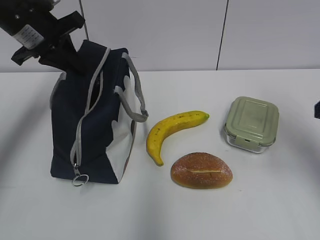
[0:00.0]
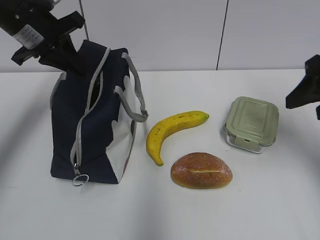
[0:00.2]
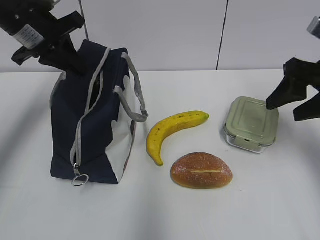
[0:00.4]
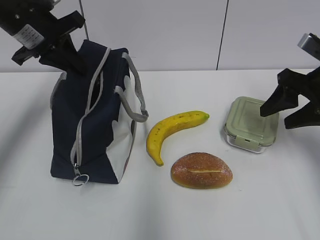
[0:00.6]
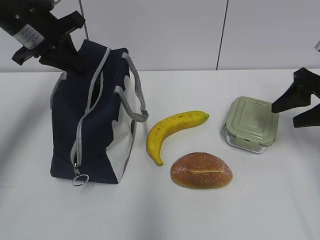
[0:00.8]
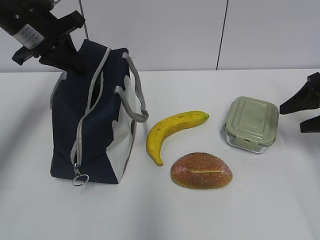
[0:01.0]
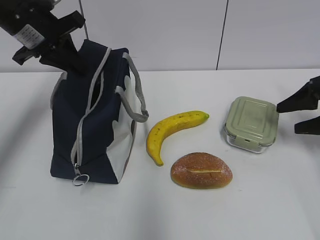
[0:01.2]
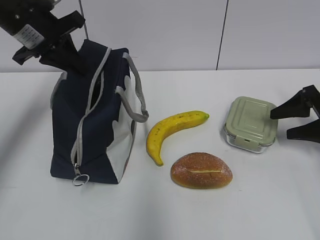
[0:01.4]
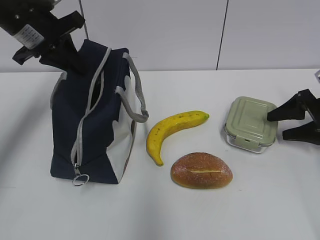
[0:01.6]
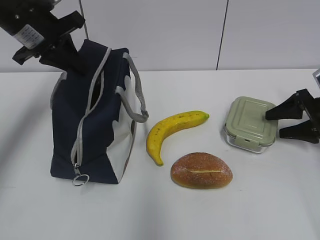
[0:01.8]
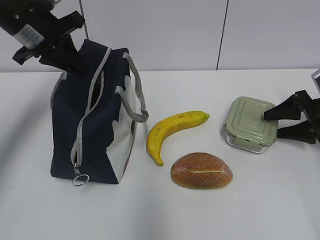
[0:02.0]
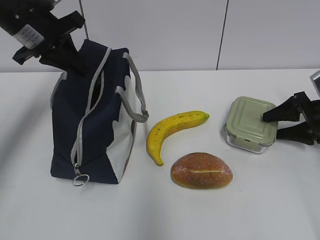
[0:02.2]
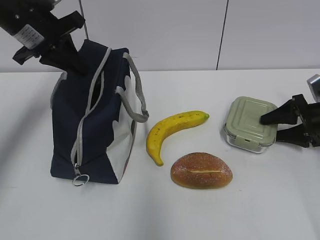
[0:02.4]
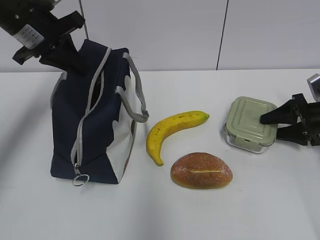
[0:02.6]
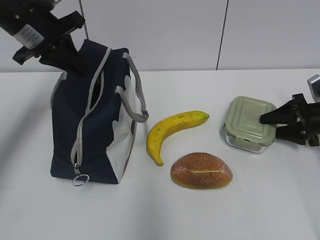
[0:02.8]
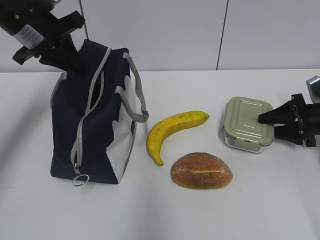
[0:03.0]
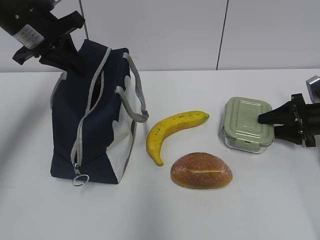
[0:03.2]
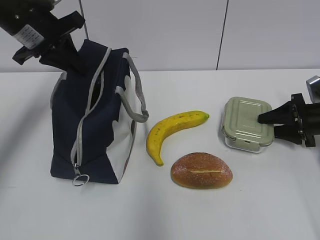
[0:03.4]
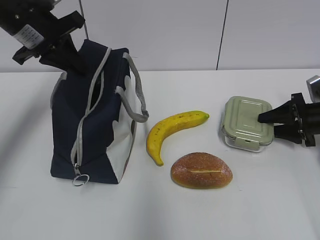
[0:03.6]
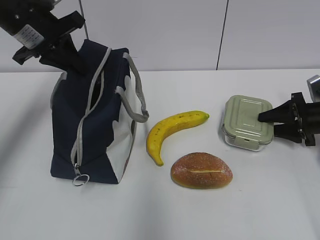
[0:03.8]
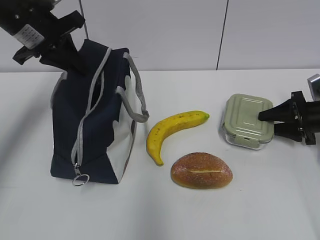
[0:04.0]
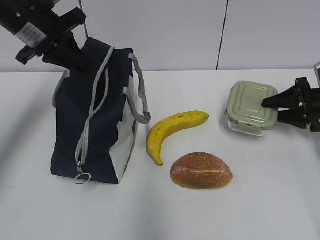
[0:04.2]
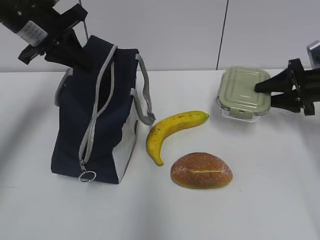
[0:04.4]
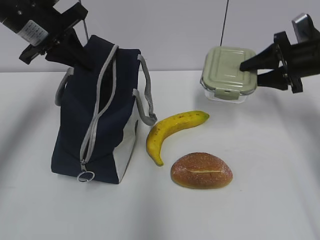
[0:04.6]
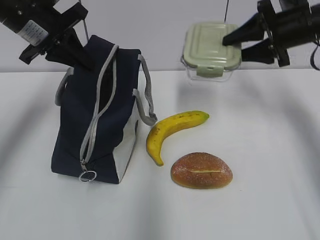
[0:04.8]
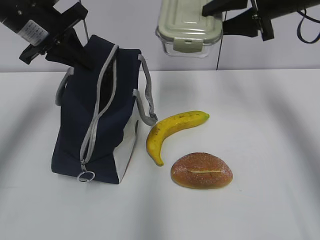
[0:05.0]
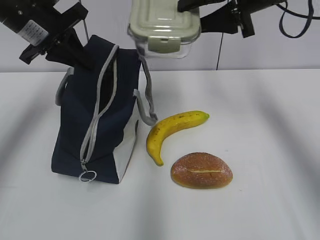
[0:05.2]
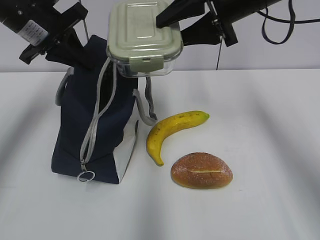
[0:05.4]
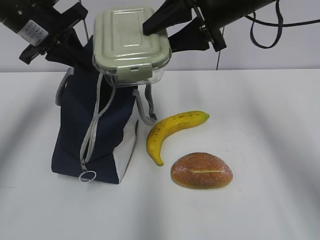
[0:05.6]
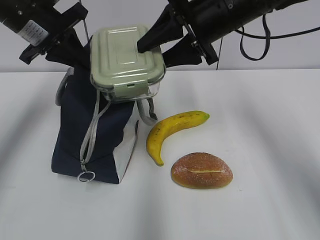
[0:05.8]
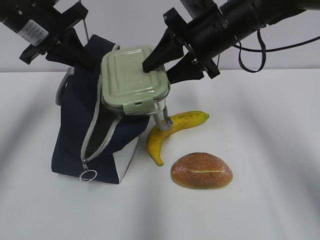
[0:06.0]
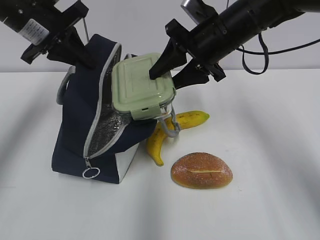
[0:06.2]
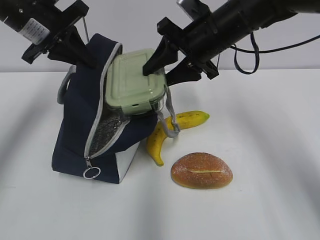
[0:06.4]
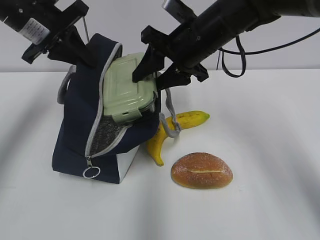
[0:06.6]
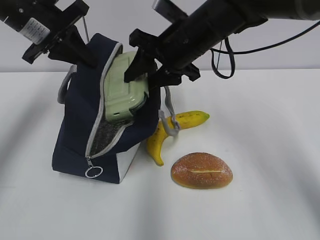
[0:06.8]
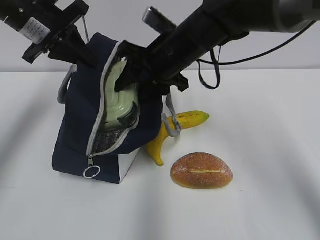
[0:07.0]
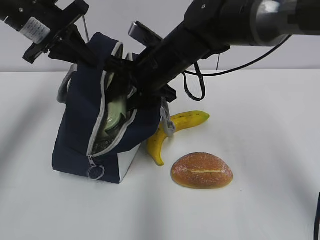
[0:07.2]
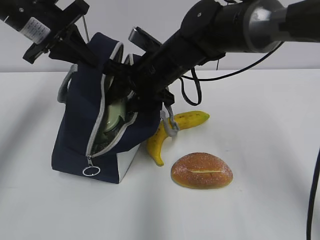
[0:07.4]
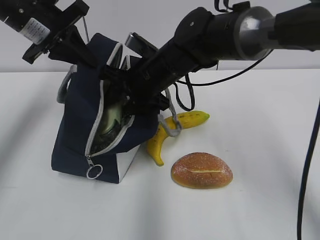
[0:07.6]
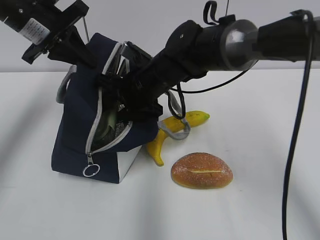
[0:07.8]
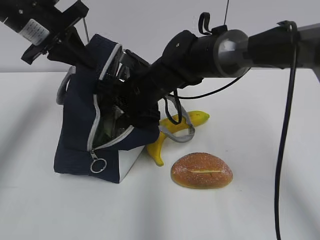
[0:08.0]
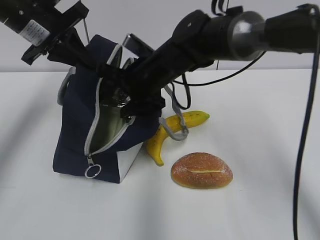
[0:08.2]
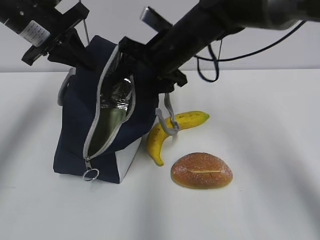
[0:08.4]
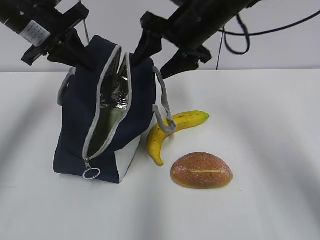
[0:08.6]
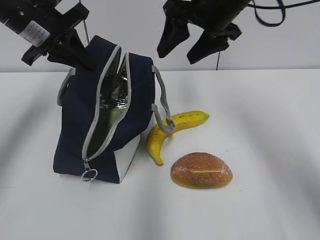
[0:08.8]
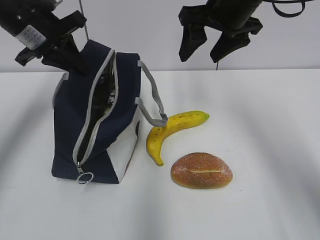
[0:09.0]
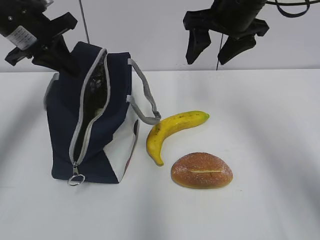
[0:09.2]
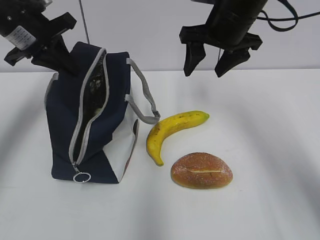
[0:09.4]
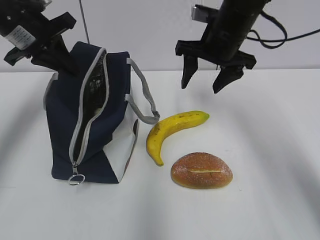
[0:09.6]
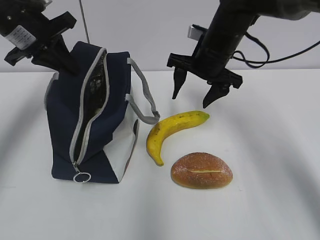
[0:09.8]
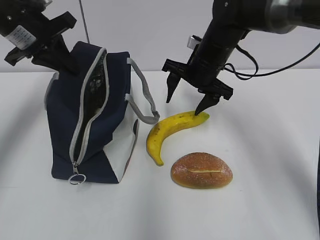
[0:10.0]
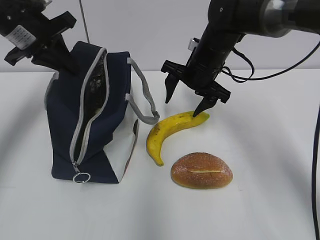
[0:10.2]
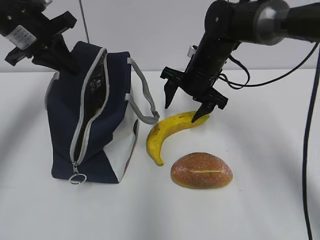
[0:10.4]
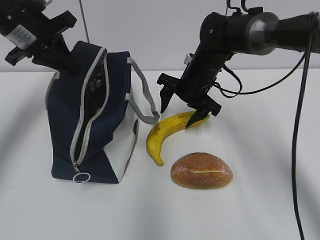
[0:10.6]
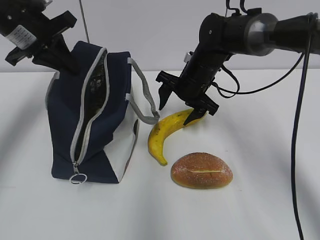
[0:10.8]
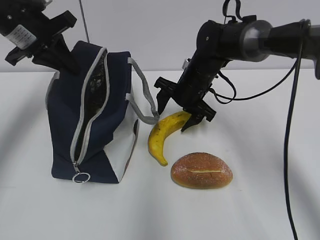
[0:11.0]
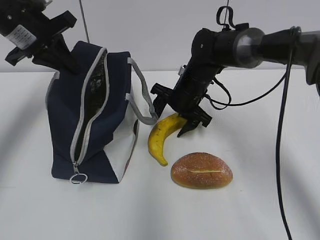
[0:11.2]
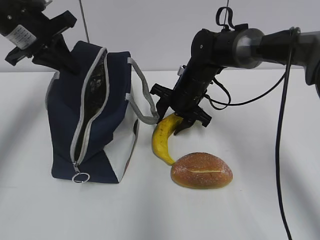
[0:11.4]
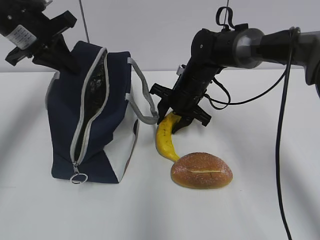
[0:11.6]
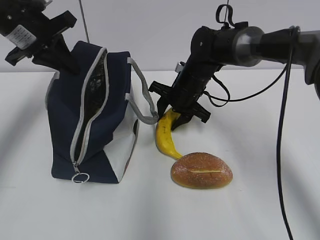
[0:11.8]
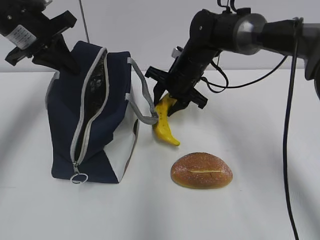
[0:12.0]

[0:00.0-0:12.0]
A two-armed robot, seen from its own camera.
Step, 0:00.0 to 0:03.2: Grab the lunch box with your right hand.
Step, 0:06.4 to 0:08.4: Place it into the bag with your right hand.
Step, 0:08.6 to 0:11.4: Grab the banana with your right hand.
0:00.0 to 0:01.6: The right gripper moves downward, forward and to the right, about 25 cm.
0:01.6 to 0:03.0: There are only small adjustments of the grippers.
0:03.0 to 0:04.4: The right gripper travels upward by some 5 cm.
0:04.4 to 0:06.0: The right gripper heads to the left and upward, covering some 25 cm.
0:06.0 to 0:07.6: The right gripper heads to the left and downward, covering roughly 15 cm.
0:07.6 to 0:09.0: The right gripper travels to the right and upward by some 15 cm.
0:09.0 to 0:10.4: The right gripper goes roughly 15 cm downward.
0:10.4 to 0:12.0: The right gripper closes its fingers.

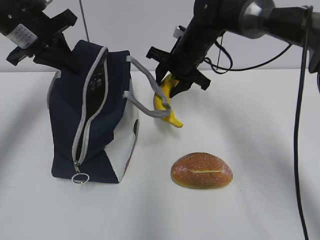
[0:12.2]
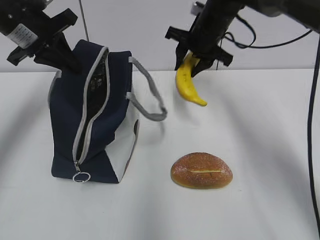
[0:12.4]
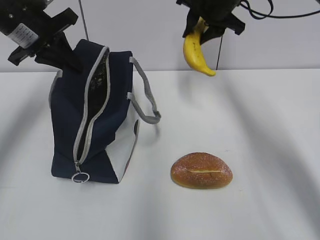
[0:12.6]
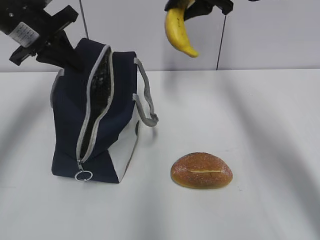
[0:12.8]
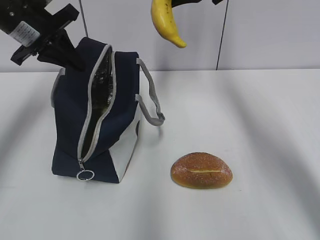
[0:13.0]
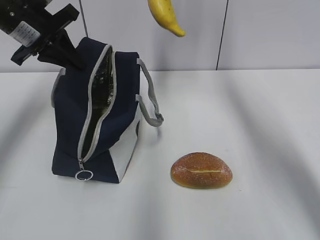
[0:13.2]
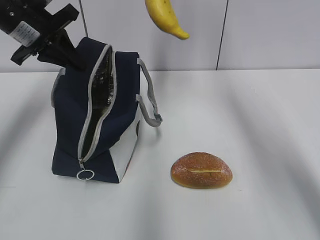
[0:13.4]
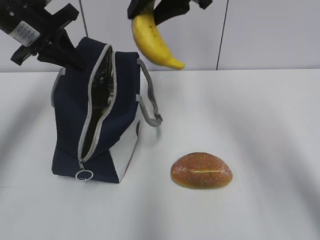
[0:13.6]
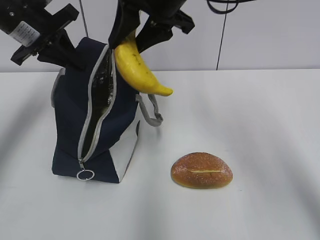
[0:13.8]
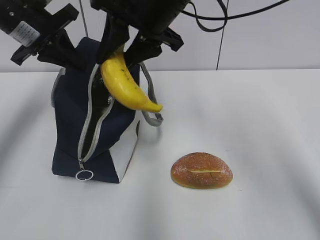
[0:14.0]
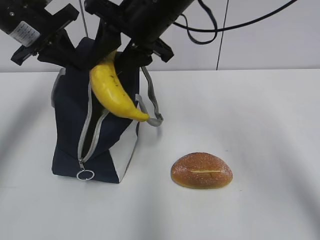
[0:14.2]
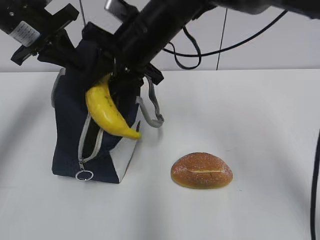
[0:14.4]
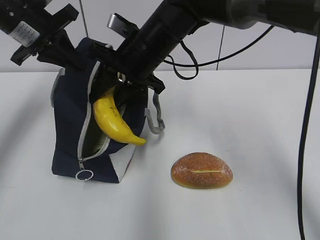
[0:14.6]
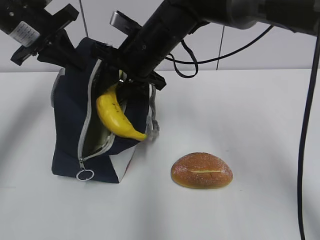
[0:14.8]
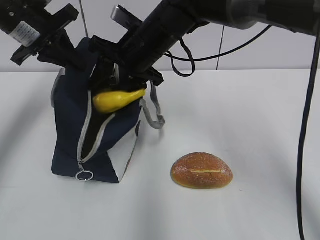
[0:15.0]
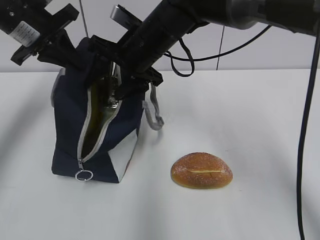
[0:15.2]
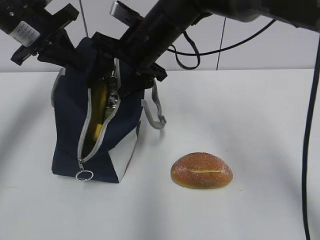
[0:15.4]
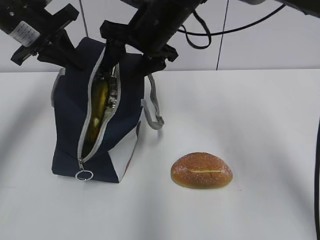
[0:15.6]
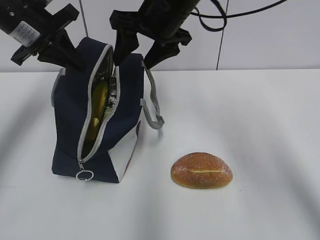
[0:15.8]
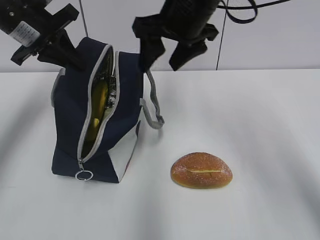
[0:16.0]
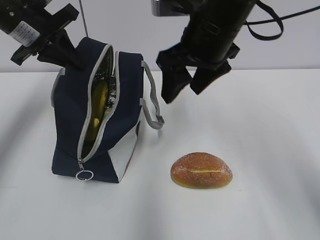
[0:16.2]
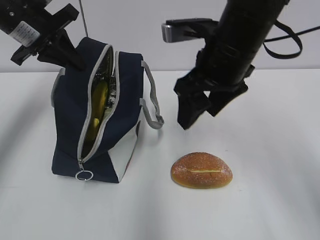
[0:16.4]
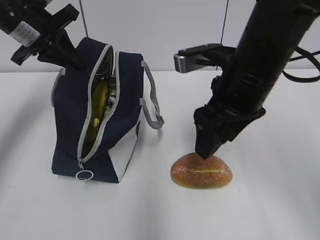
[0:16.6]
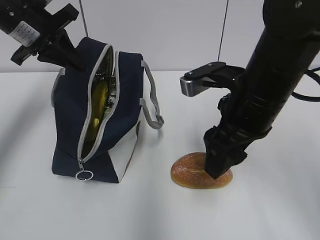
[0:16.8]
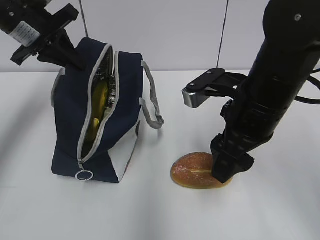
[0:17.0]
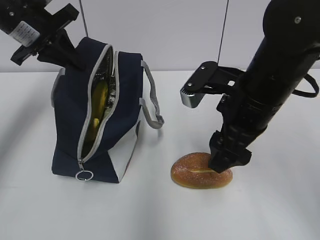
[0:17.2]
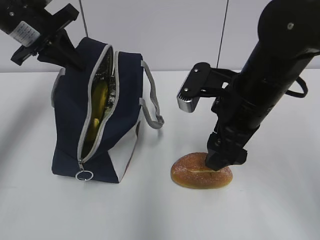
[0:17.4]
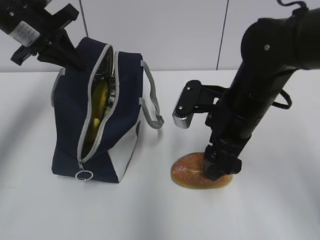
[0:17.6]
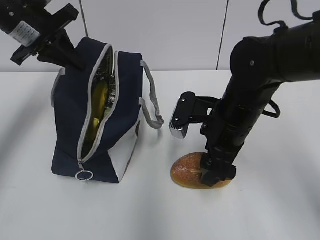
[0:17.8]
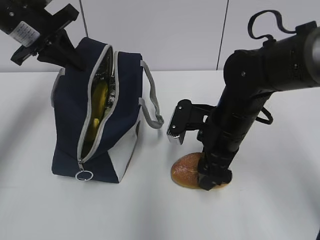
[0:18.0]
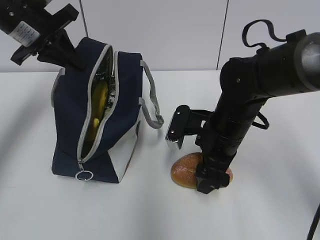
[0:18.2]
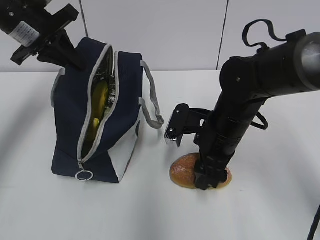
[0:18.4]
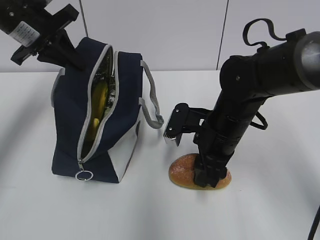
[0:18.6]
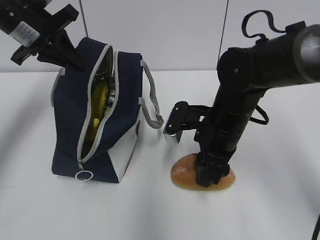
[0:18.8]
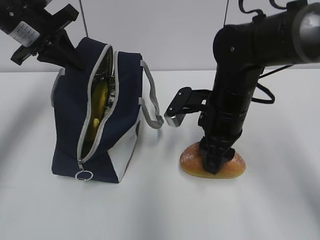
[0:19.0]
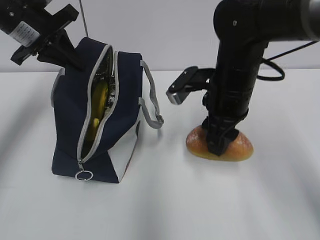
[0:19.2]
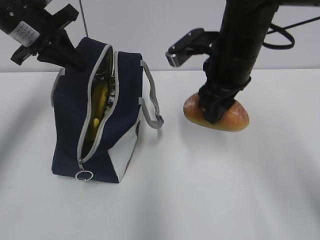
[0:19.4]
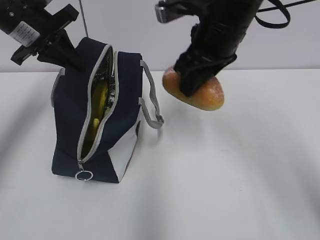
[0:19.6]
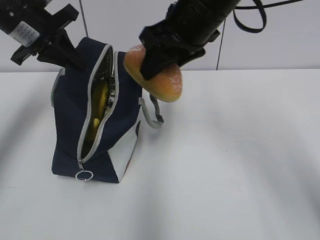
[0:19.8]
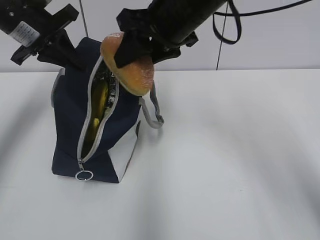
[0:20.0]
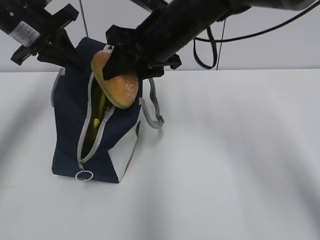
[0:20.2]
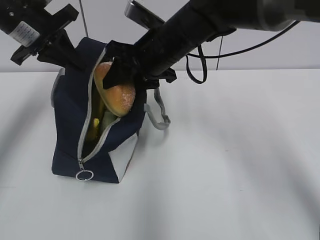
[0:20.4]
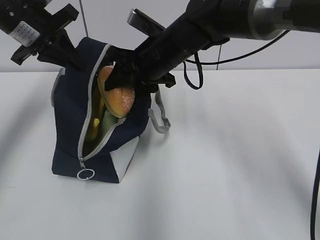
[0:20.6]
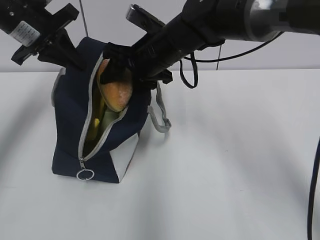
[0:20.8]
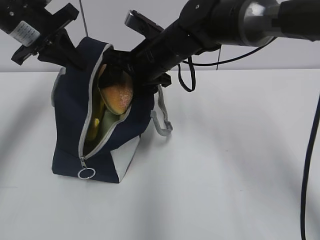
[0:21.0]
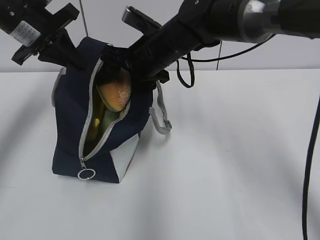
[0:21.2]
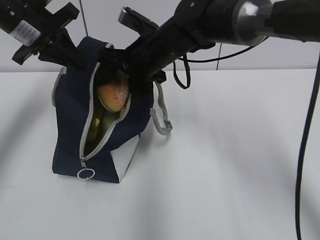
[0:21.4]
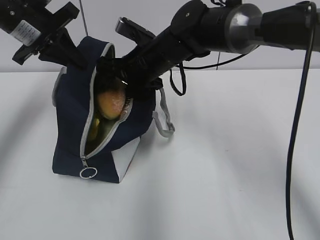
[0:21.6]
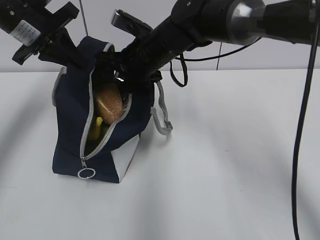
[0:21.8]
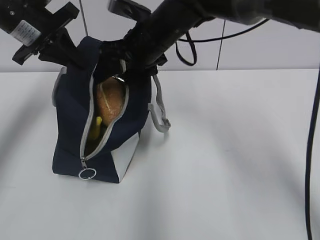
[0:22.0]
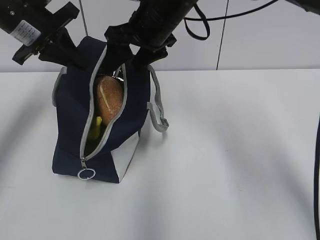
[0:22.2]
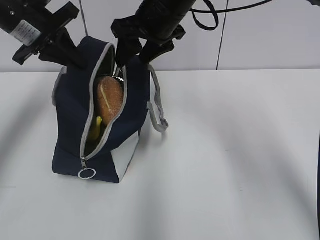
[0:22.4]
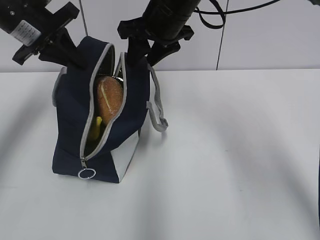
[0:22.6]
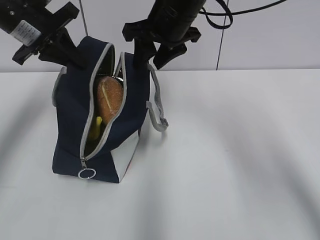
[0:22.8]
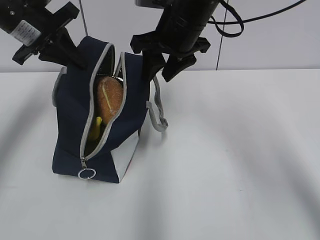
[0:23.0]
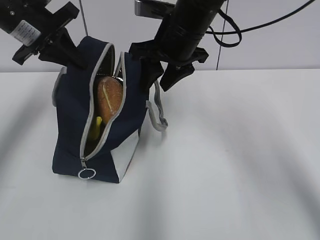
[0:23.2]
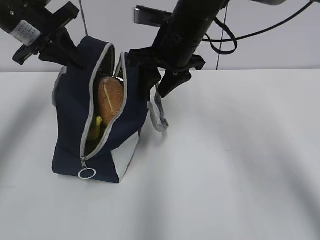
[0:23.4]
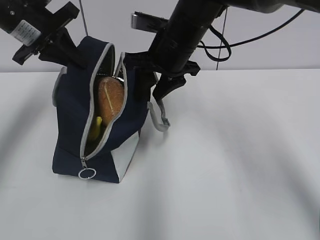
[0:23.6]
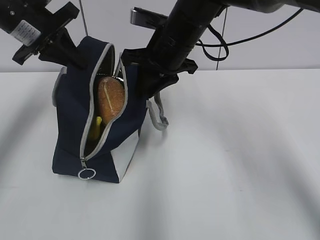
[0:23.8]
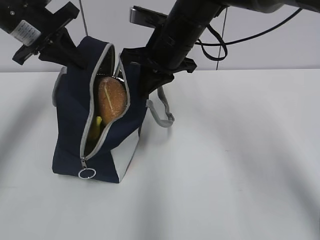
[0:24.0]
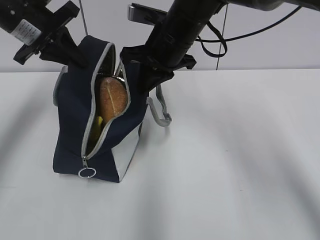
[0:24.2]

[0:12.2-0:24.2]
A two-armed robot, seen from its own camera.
Step, 0:12.2 to 0:15.4: Place it into the bag with your right hand.
Step, 0:15.6 to 0:18.6: Grab the bread with your right hand.
Step, 0:18.8 to 0:22.2: Place it into the bag with your right hand.
0:12.2 to 0:13.8: The right gripper goes some 20 cm upward and backward.
0:13.8 to 0:15.2: The right gripper shifts roughly 10 cm downward.
0:15.2 to 0:16.6: The right gripper heads backward and to the right, covering roughly 15 cm.
0:16.6 to 0:18.2: The right gripper moves downward, approximately 10 cm.
0:18.2 to 0:19.8: The right gripper shifts some 20 cm upward, and closes up.
0:19.8 to 0:21.2: The right gripper moves downward, forward and to the left, roughly 15 cm.
0:21.2 to 0:22.6: The right gripper travels upward by approximately 5 cm.
0:22.6 to 0:24.2: The right gripper closes up.
